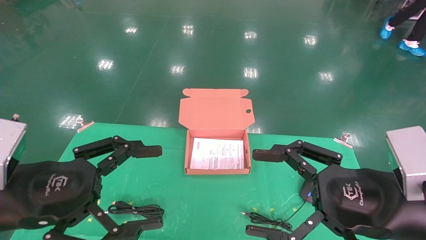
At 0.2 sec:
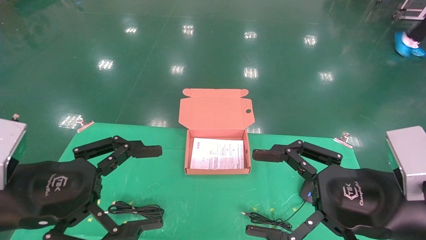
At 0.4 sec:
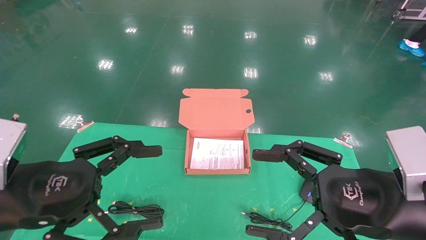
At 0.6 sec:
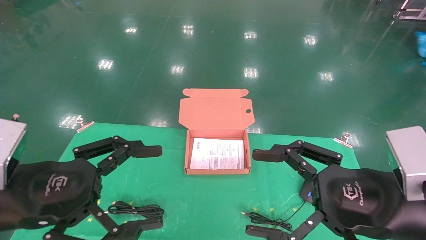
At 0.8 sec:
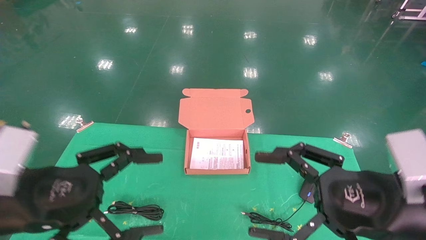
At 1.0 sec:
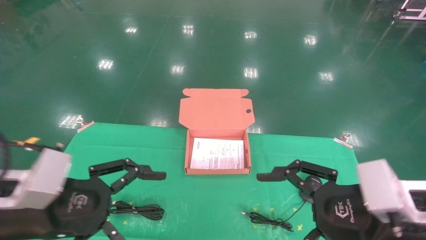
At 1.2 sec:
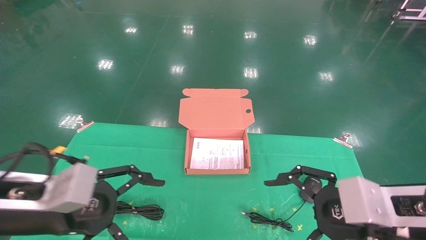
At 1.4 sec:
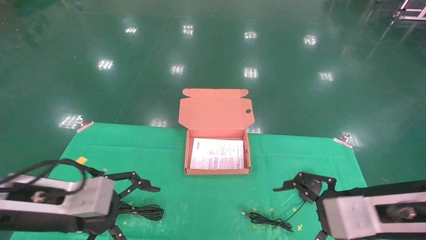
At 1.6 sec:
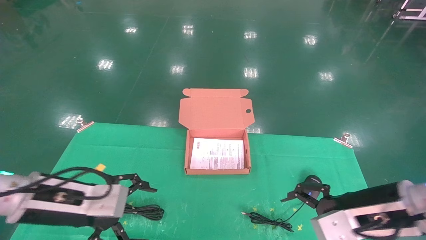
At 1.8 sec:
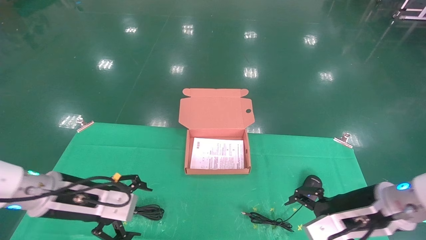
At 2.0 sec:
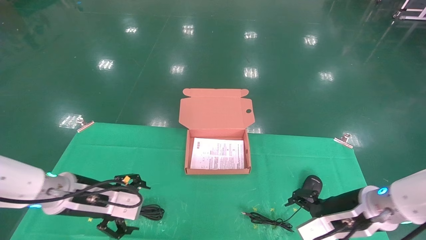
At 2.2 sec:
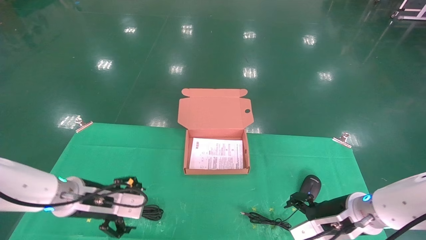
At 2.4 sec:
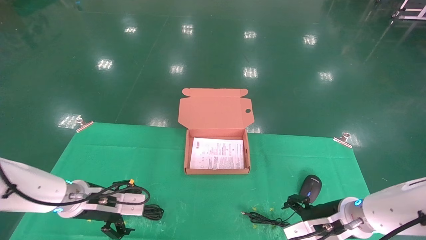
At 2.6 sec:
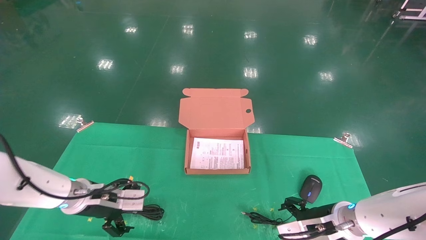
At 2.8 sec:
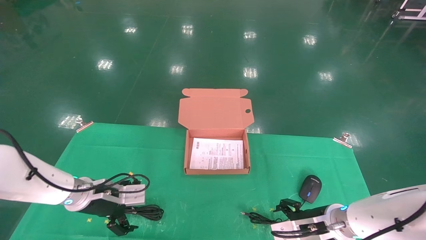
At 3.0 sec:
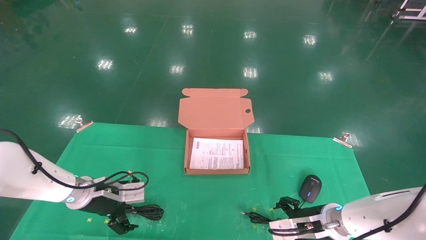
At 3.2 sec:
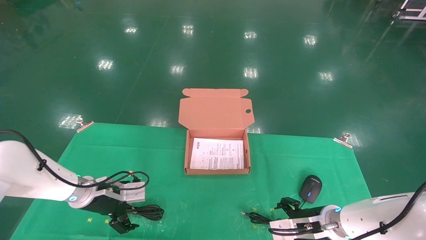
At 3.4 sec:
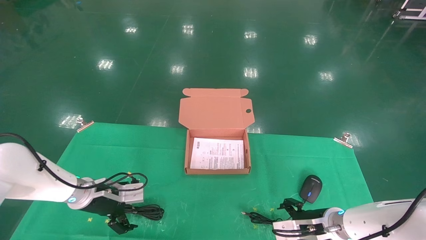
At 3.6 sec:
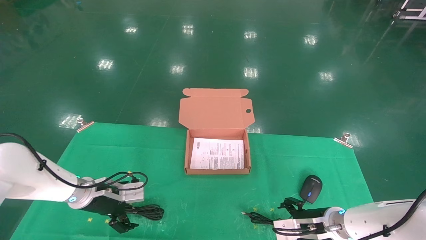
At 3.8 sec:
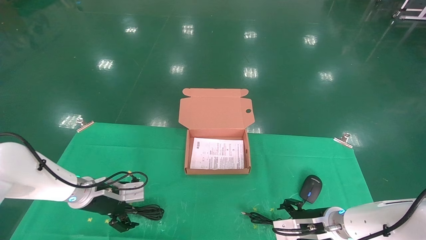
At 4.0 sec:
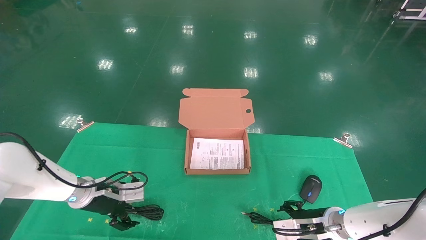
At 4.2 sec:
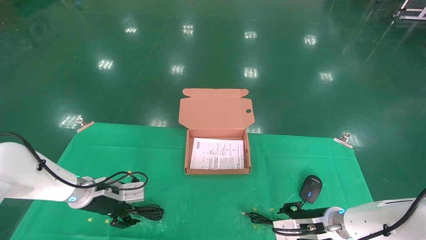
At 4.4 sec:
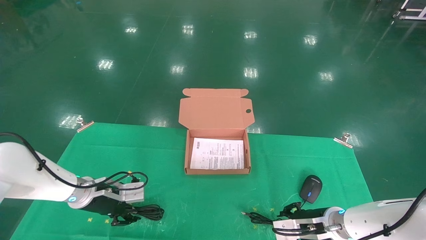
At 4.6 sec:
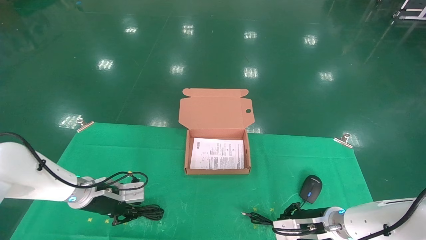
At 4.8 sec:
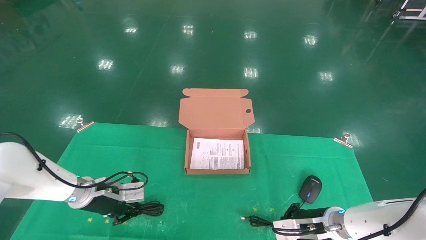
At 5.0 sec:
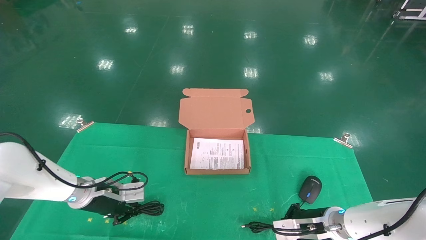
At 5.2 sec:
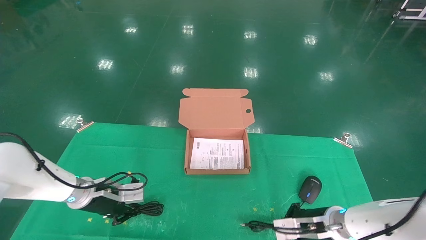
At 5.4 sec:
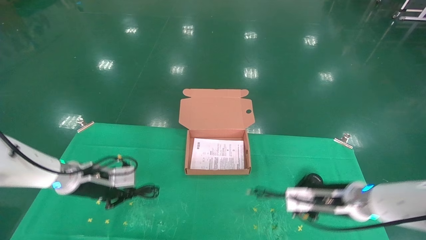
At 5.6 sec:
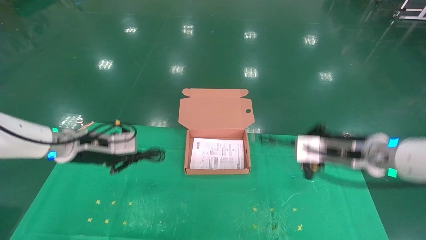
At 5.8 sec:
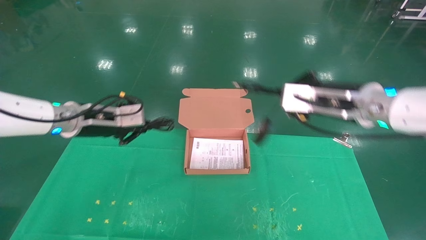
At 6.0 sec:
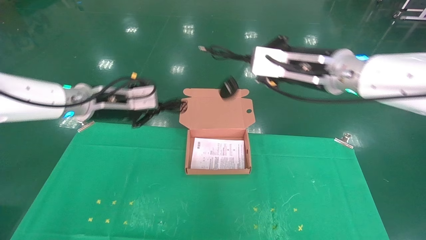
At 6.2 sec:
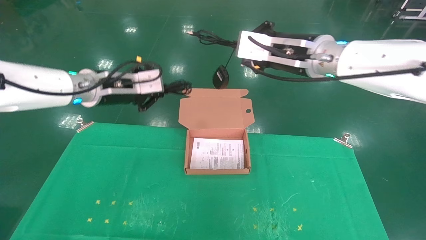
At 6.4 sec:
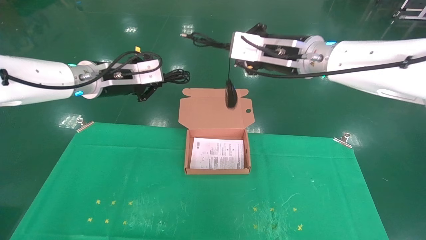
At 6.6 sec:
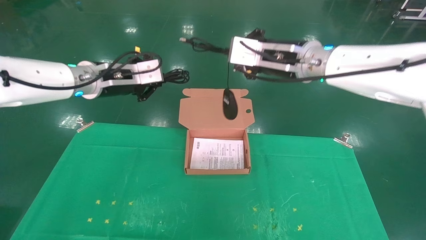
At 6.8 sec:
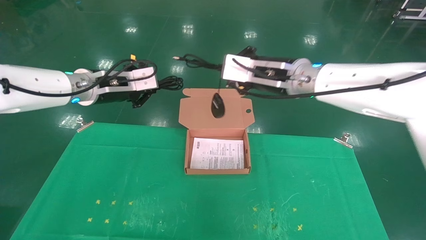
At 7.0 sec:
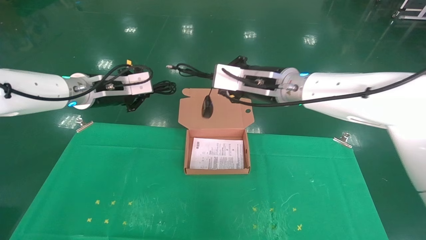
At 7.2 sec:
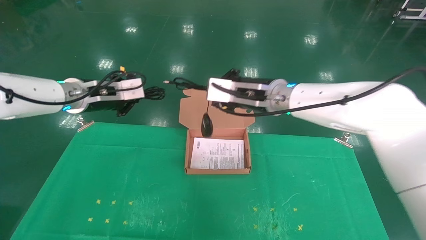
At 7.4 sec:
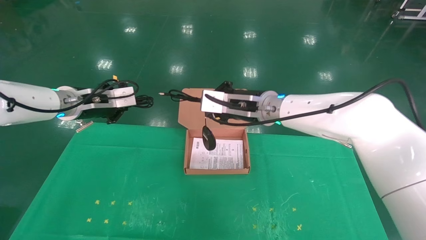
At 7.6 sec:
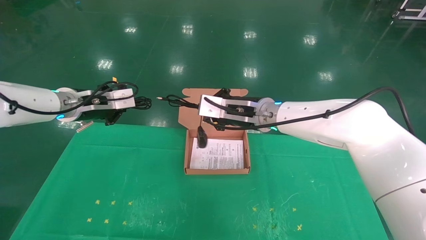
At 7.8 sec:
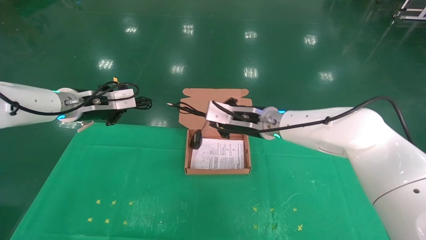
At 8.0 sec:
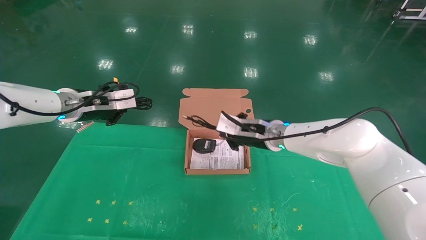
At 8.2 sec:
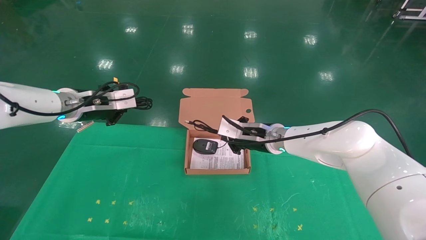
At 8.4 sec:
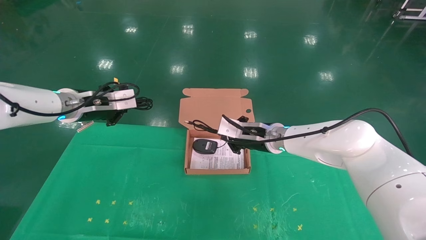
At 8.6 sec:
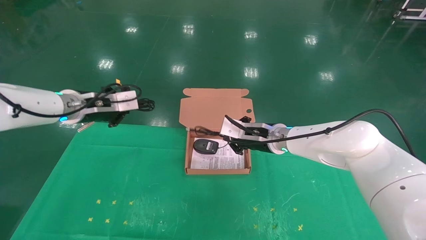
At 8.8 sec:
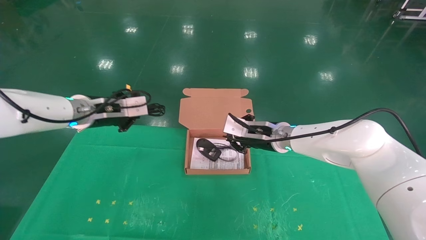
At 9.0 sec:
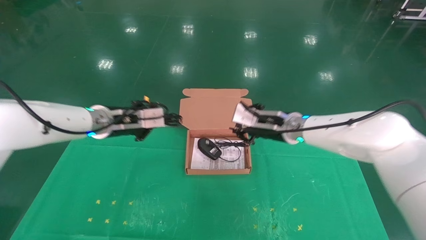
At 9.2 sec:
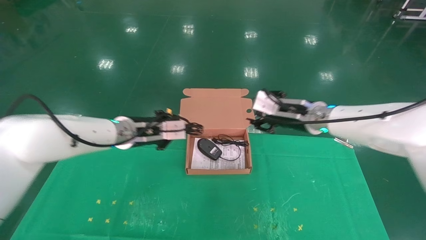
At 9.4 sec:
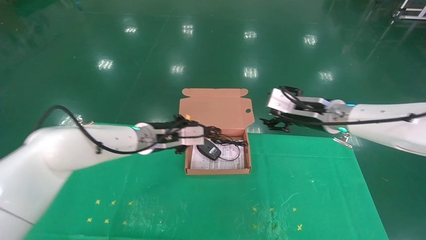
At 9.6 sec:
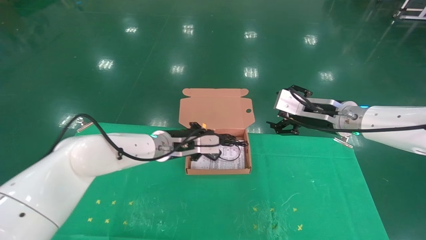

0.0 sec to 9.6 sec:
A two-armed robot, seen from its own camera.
Task of the whole recording: grasp data cable left put into box grasp mouse right put into box.
Step, 0.8 sec to 5.8 sec: Grab and pick up both the mouse and power cord from the accessory packaging area at the same time.
0.0 sec to 1.6 sec: Both grippers move forward and downward, roughly 10 cm.
1.6 sec to 3.2 sec: The right gripper heads downward and forward, covering some 15 cm; the left gripper heads forward and downward, covering roughly 20 cm.
3.2 sec to 4.8 sec: The left gripper closes its fingers. Meanwhile the right gripper closes.
4.8 sec to 6.4 sec: The two grippers go roughly 30 cm upward.
6.4 sec to 8.0 sec: The right gripper heads downward and forward, covering roughly 20 cm, while the left gripper moves to the left, approximately 5 cm.
8.0 sec to 9.6 sec: The right gripper heads to the right, backward and upward, covering roughly 15 cm, and opens its fingers, while the left gripper travels to the right and downward by approximately 20 cm.

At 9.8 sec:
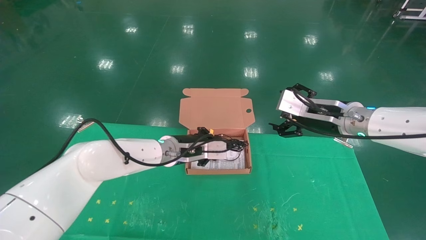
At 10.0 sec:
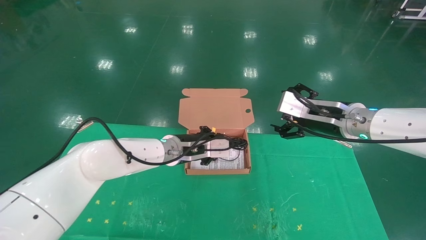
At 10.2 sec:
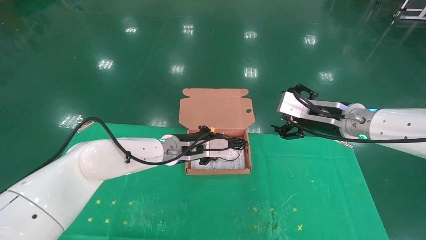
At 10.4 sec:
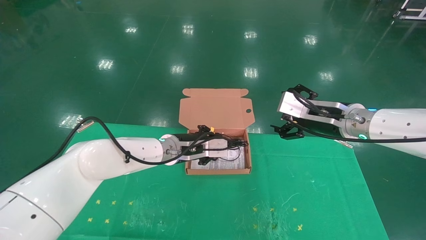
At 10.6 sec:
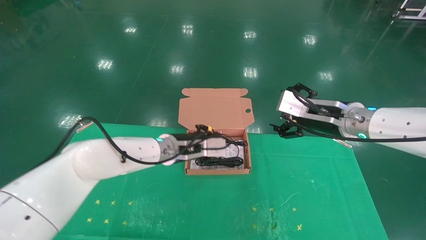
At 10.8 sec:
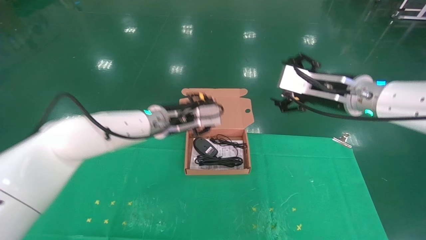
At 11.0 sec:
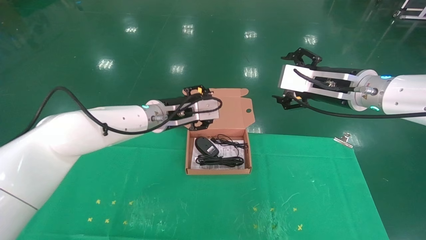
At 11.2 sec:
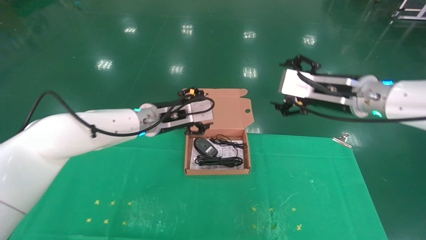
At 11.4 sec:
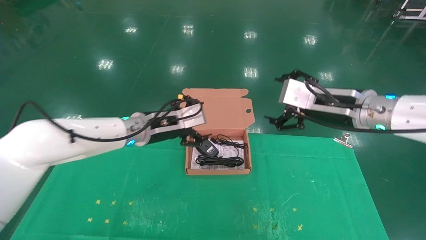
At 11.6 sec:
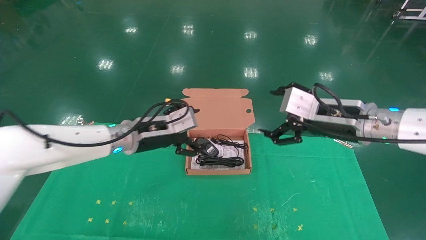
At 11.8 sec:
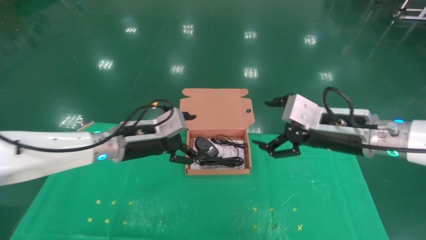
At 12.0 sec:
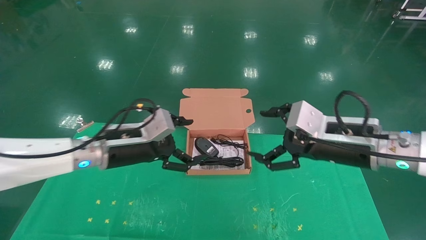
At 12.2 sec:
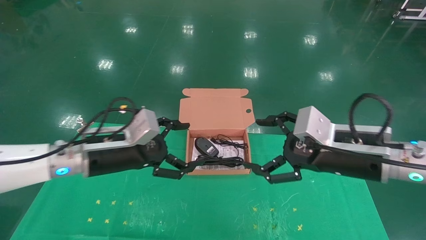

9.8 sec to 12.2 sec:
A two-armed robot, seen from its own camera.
Task of the whole recording: grasp data cable left put into box grasp mouse right put into box.
9.8 sec to 11.0 sec: Both grippers move upward, approximately 5 cm. The left gripper opens.
11.0 sec to 12.2 sec: The left gripper travels backward and to the left by some 15 cm, and opens its fingers. Meanwhile the right gripper shifts roughly 10 cm backward and downward.
